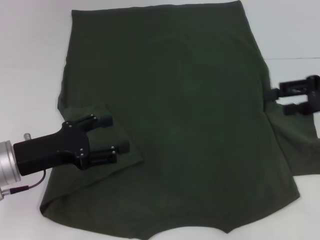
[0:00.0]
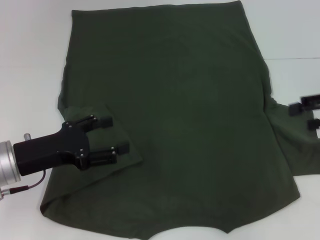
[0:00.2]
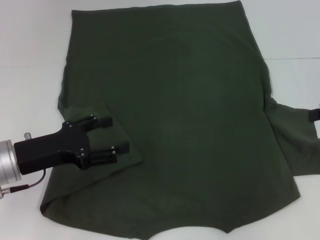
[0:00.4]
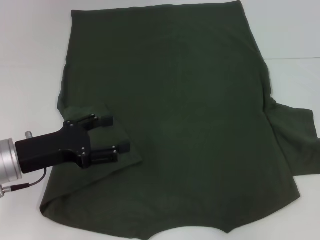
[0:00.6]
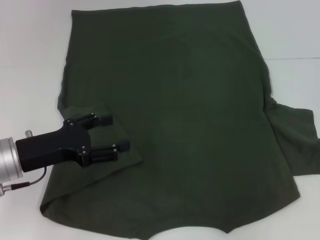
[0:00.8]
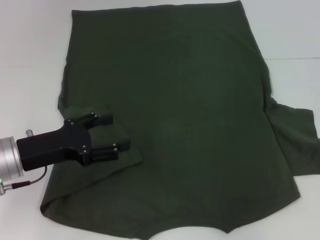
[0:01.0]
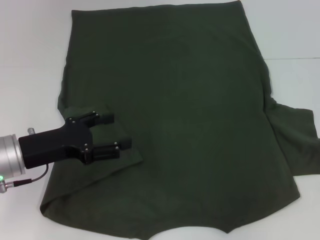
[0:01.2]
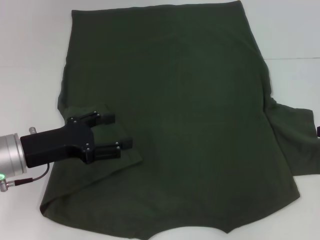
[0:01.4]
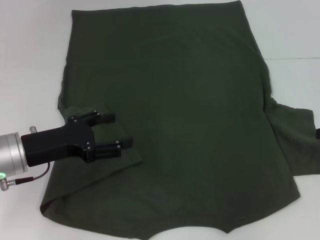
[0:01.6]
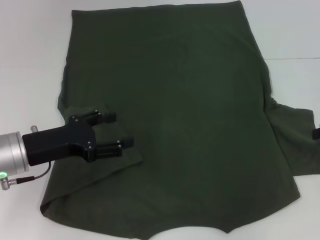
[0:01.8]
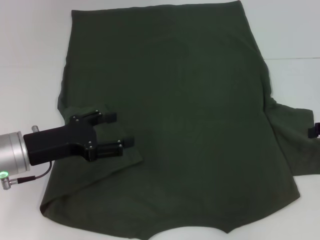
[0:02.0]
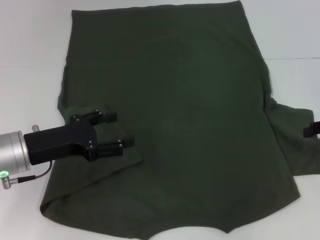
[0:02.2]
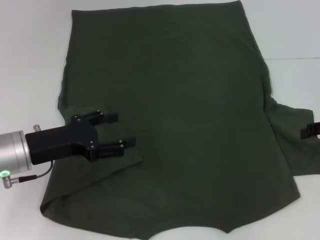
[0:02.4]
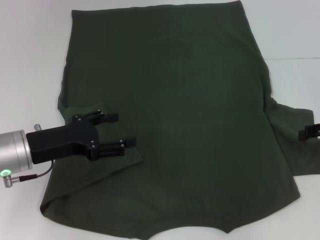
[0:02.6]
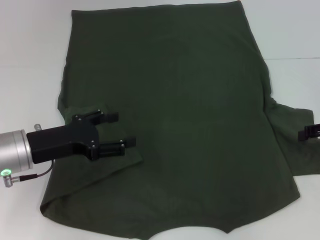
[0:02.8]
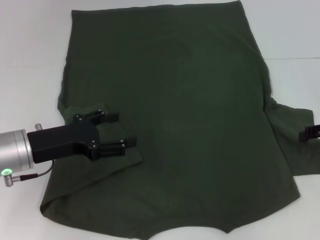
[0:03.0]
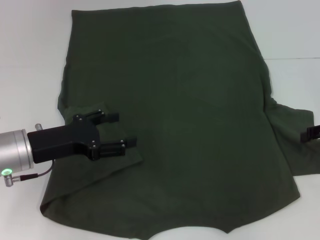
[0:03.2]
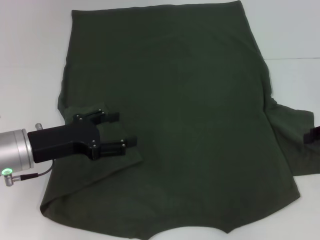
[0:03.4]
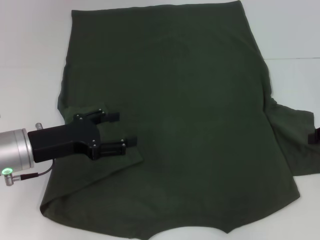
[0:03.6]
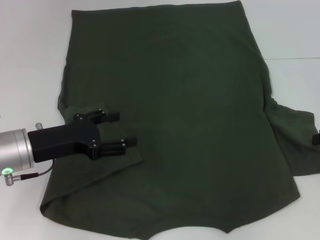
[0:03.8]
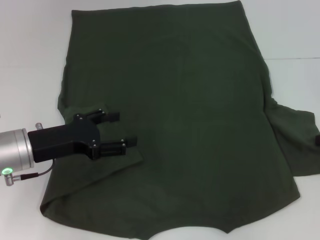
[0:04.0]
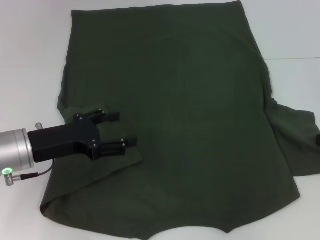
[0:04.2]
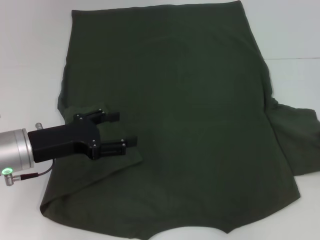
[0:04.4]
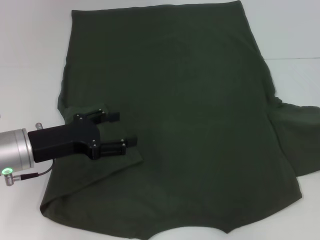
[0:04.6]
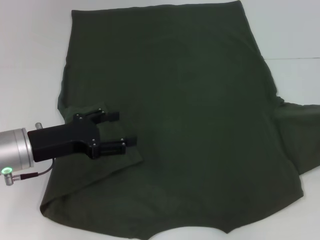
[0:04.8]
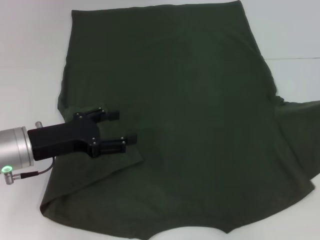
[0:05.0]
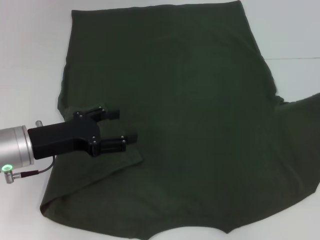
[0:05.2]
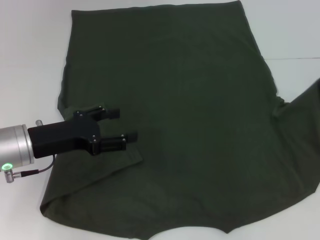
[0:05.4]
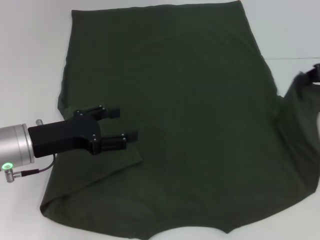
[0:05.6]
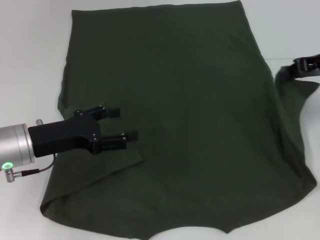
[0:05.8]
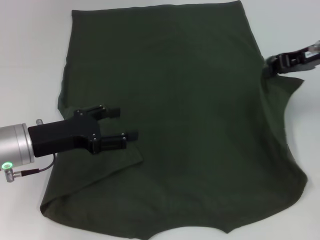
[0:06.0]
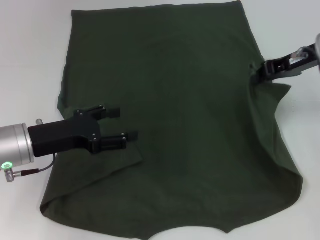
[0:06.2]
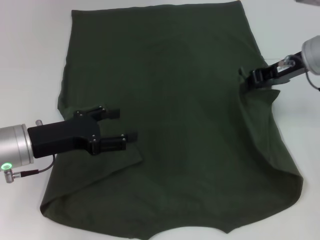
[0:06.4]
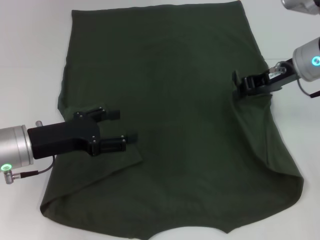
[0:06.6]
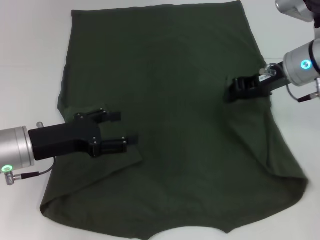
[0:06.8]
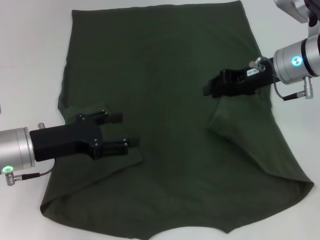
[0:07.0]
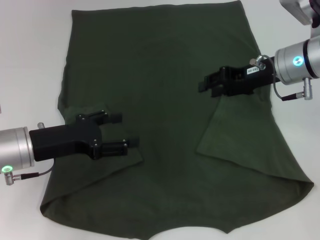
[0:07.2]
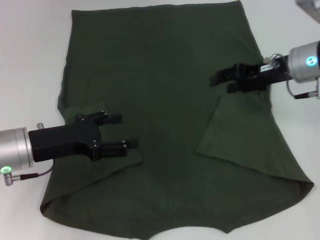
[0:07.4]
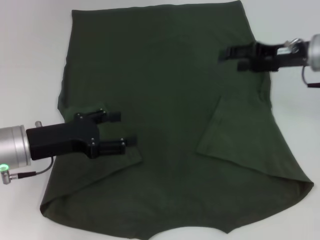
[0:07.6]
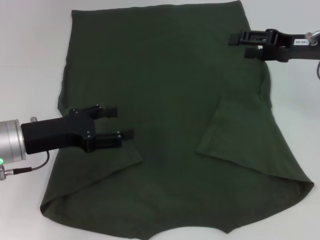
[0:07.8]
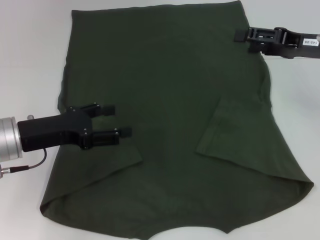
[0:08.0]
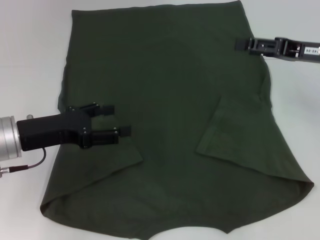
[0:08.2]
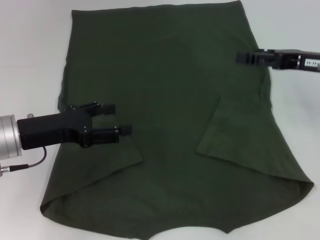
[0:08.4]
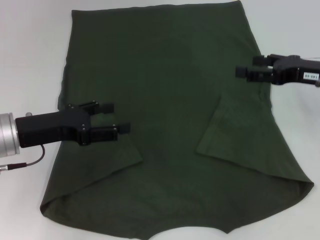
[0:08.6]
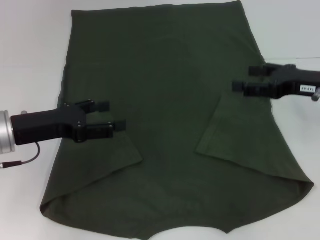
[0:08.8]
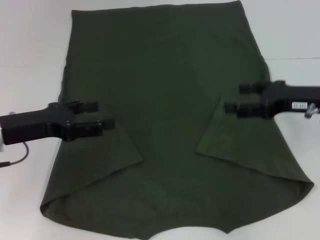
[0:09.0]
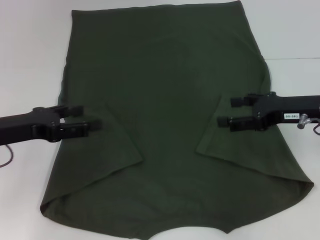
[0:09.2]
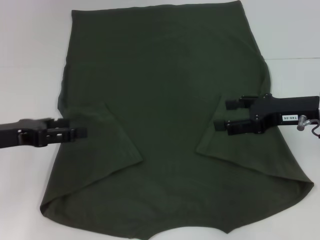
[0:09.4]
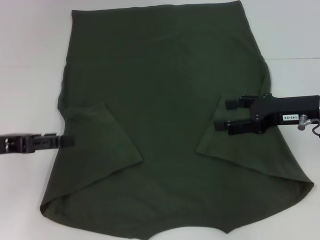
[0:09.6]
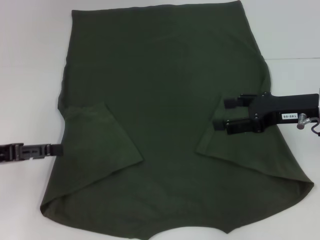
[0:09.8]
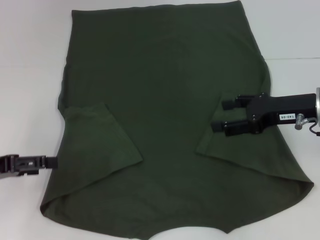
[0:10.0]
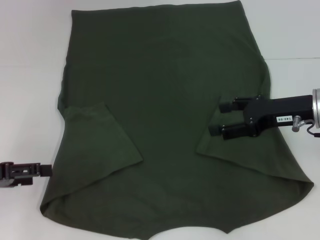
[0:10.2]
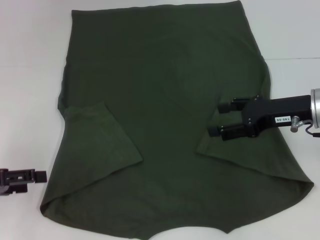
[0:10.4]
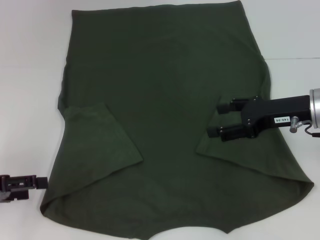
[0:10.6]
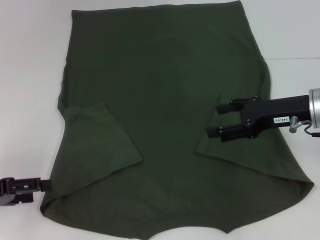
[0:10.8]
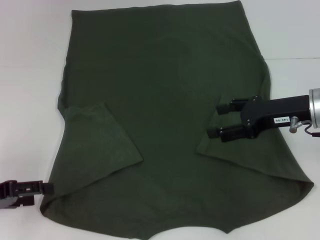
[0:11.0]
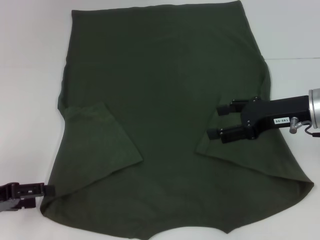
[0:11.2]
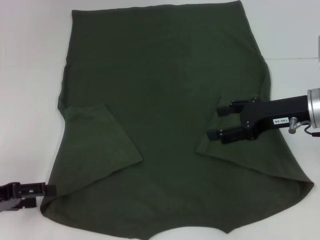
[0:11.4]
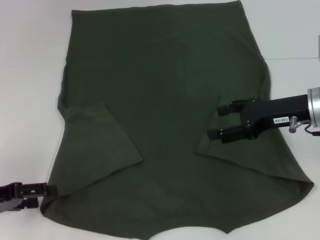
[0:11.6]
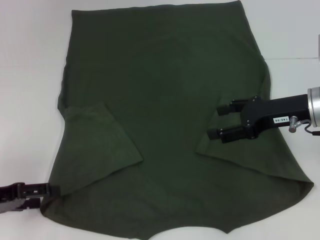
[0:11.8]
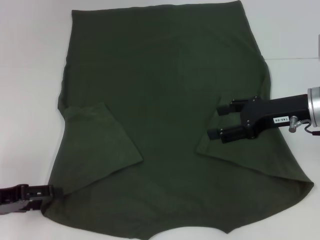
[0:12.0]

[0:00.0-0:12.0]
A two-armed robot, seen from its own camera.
Step, 0:00.0 to 0:07.0: Fold the bottom right sleeve with your right hand.
0:00.0 to 0:01.6: The right gripper is displaced to the right by some 5 cm.
0:01.6 to 0:03.0: The grippers stay close to where they were, moving slightly.
0:04.4 to 0:06.0: The right gripper travels to the left, forward and upward by approximately 15 cm.
0:06.0 to 0:07.6: The right gripper opens its fingers.
0:07.6 to 0:09.0: The right gripper goes roughly 5 cm backward.
0:09.0 to 0:10.4: The left gripper moves to the left and backward, some 10 cm.
0:10.4 to 0:12.0: The grippers make only small movements.

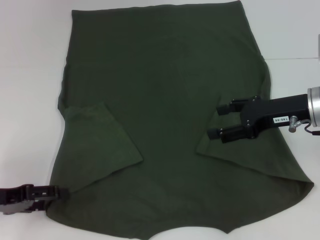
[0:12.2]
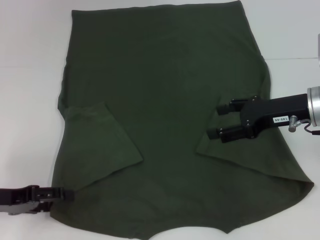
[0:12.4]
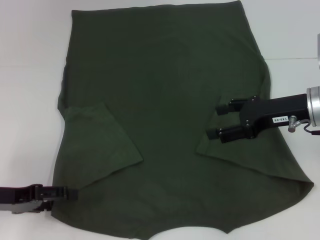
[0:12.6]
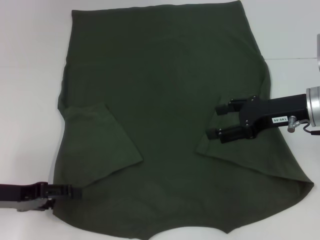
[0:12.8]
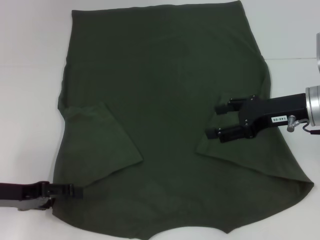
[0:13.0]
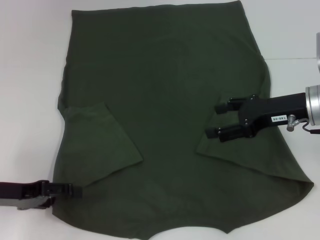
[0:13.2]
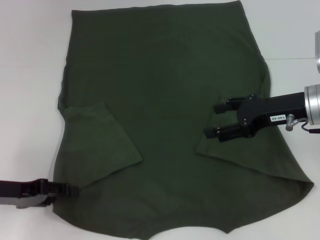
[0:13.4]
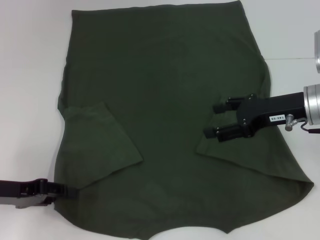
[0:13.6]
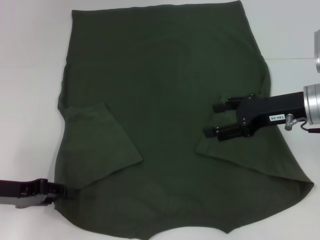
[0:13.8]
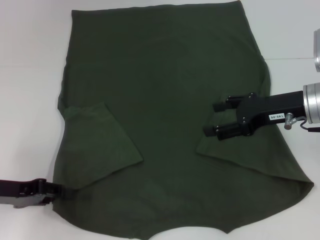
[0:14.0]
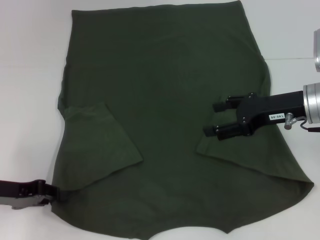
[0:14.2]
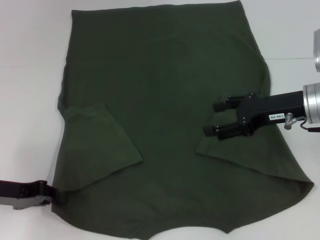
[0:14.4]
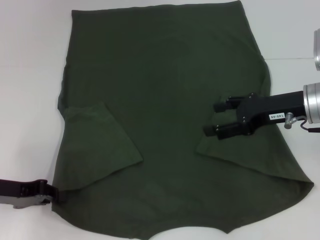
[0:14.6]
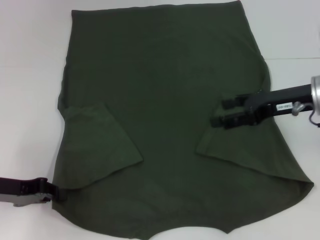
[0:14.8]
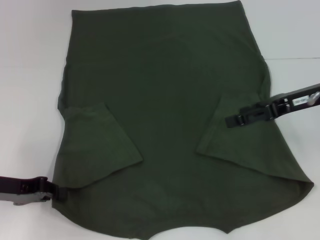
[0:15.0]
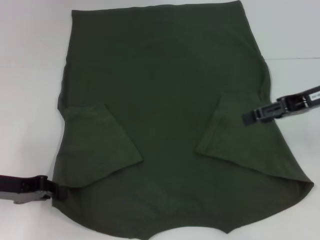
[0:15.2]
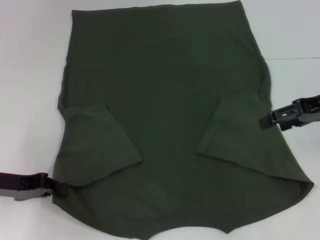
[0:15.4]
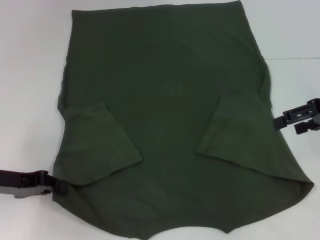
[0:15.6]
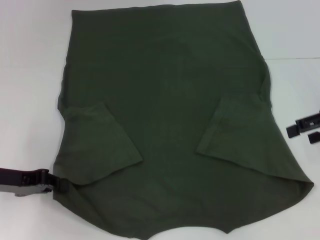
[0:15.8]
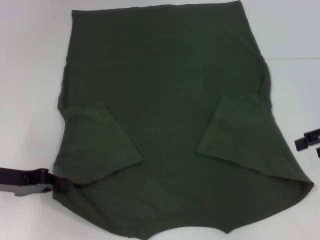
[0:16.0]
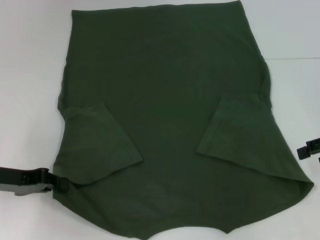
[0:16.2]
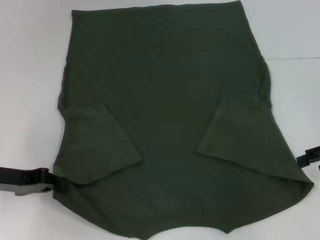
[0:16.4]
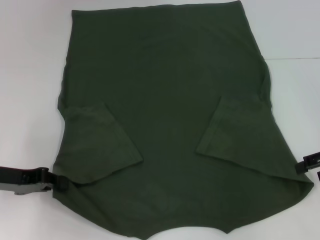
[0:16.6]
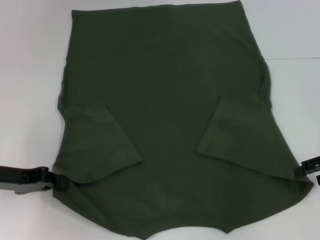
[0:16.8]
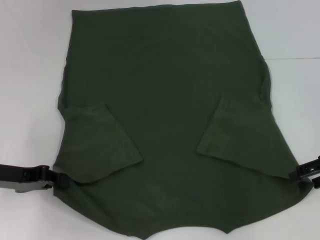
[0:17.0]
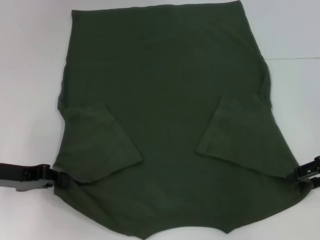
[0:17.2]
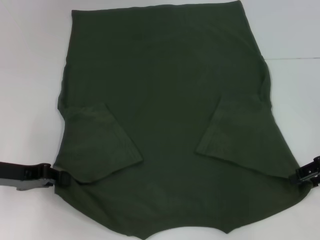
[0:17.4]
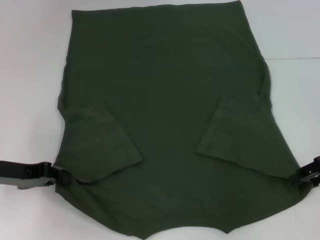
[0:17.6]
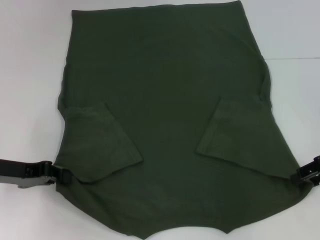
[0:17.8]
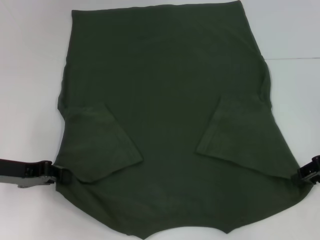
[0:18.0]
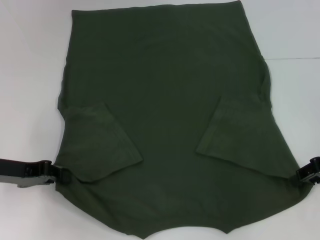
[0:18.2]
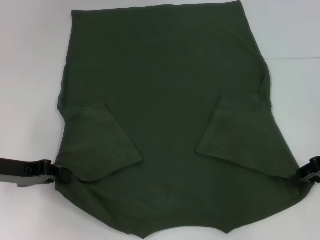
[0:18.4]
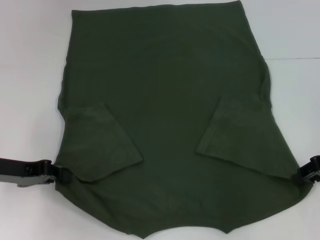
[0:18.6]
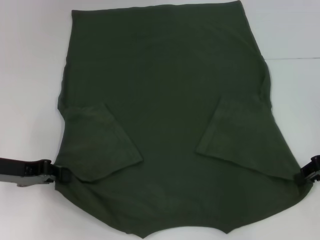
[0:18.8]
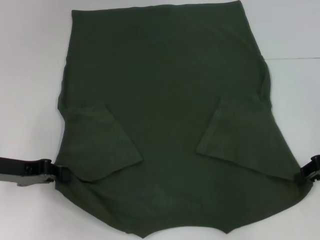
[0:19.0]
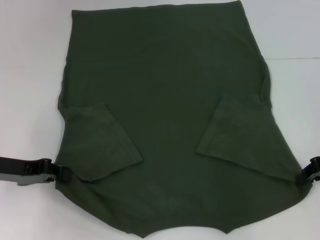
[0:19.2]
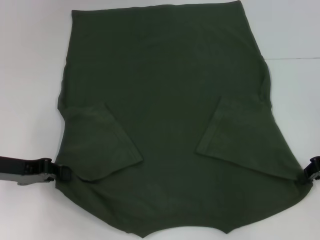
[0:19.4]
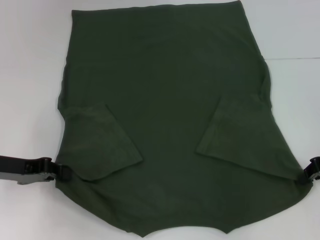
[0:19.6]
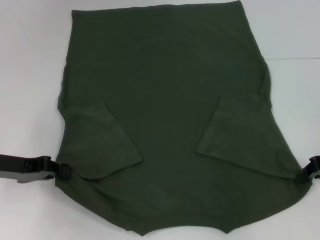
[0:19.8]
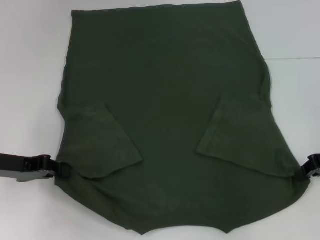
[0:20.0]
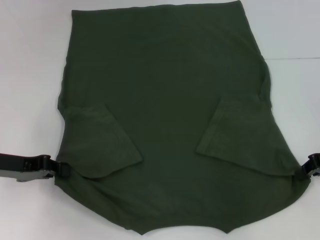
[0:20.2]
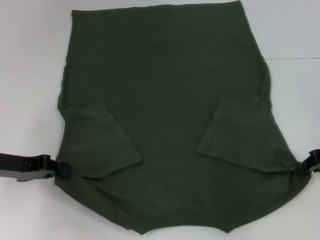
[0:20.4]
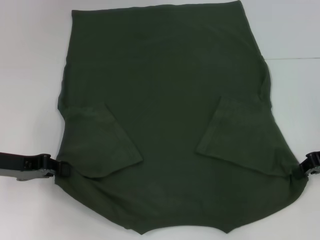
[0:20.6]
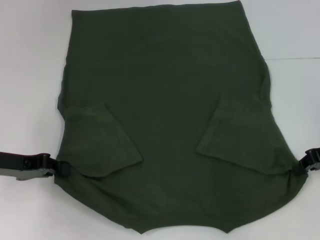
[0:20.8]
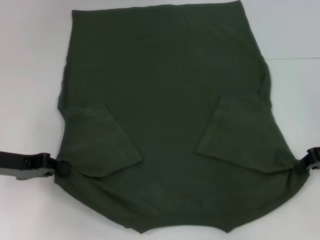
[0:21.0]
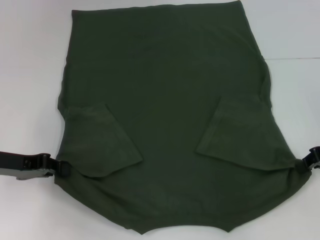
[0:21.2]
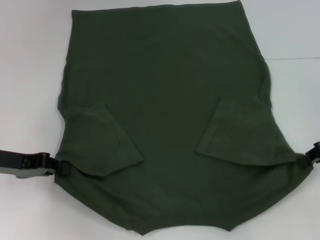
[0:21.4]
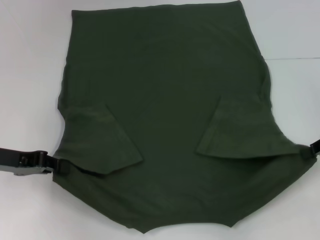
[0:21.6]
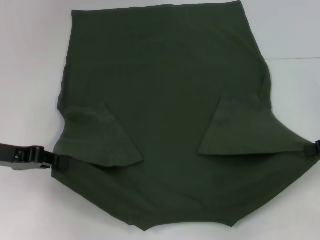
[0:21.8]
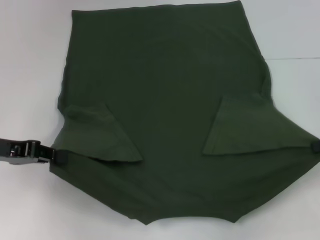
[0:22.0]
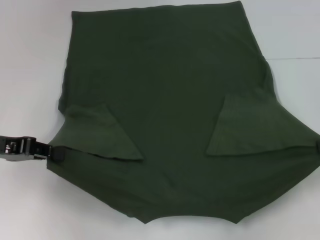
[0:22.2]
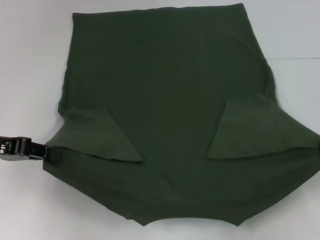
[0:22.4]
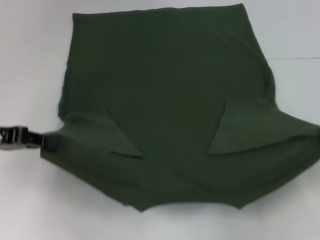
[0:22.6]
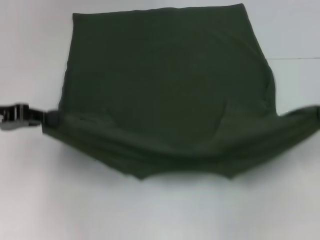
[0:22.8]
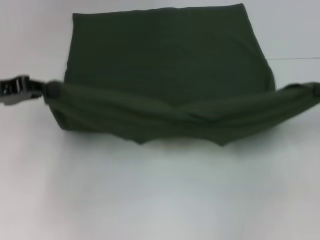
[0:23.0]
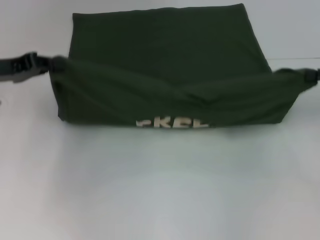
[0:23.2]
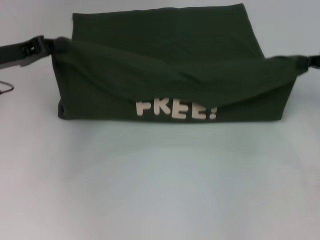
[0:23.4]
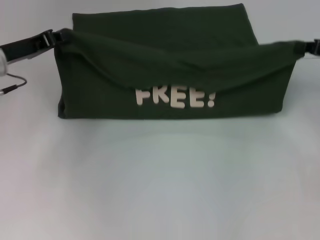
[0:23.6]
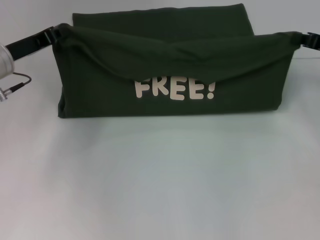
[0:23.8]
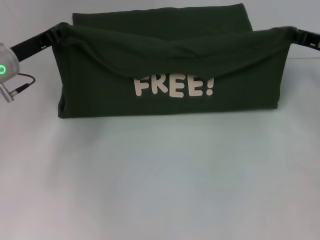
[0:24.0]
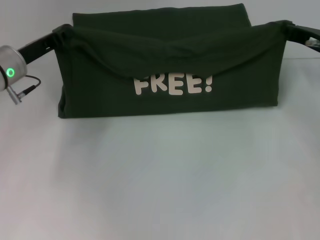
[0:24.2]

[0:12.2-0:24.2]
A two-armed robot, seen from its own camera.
Step, 0:12.2 to 0:14.4: Grab the bottom left corner with your left hand.
Step, 0:14.6 to 0:19.4: Grab the bottom right corner with your right hand.
0:12.2 to 0:13.8: The left gripper closes up.
0:13.8 to 0:15.2: The right gripper changes place by roughly 5 cm. The left gripper closes.
0:15.2 to 0:16.6: The right gripper goes roughly 5 cm to the right.
0:16.6 to 0:18.2: The right gripper closes up.
0:18.2 to 0:19.8: The right gripper closes its fingers.
0:19.8 to 0:21.2: Both grippers stay about where they are.
0:21.2 to 0:22.6: The left gripper moves upward, about 5 cm. The right gripper goes about 5 cm to the right.
0:22.6 to 0:24.2: The right gripper is displaced forward and to the left by approximately 15 cm; the left gripper goes roughly 10 cm forward and to the right.
